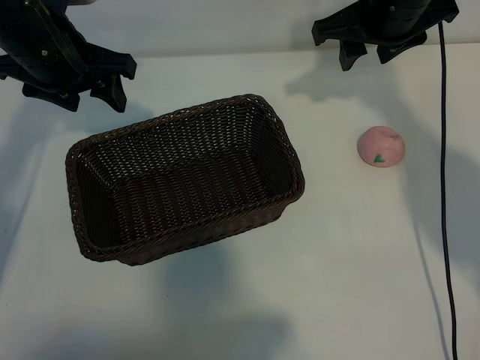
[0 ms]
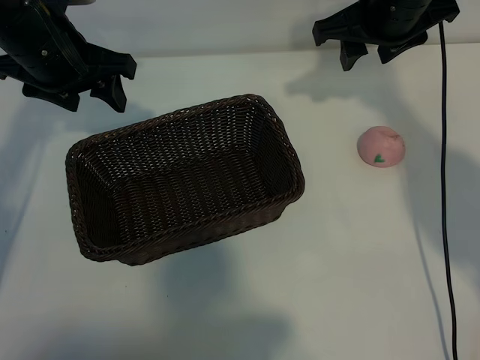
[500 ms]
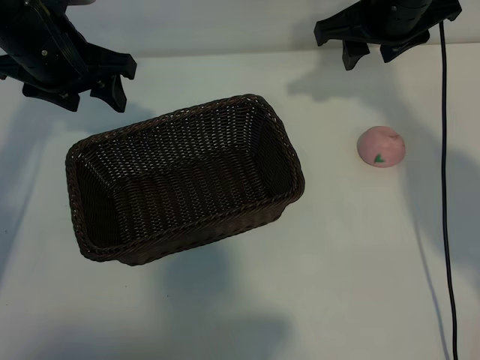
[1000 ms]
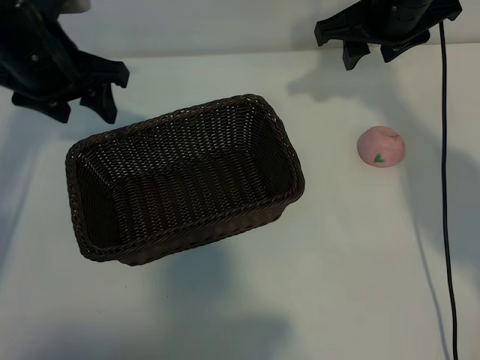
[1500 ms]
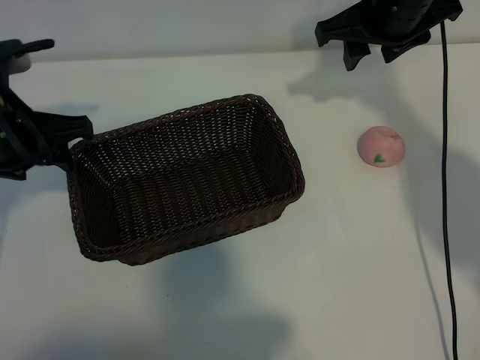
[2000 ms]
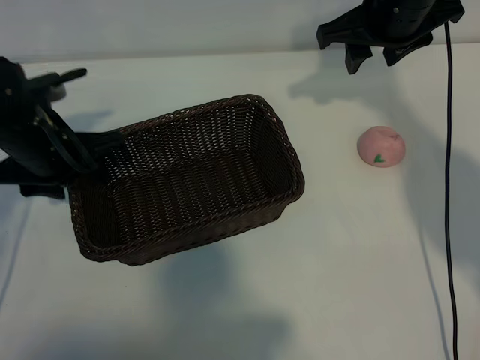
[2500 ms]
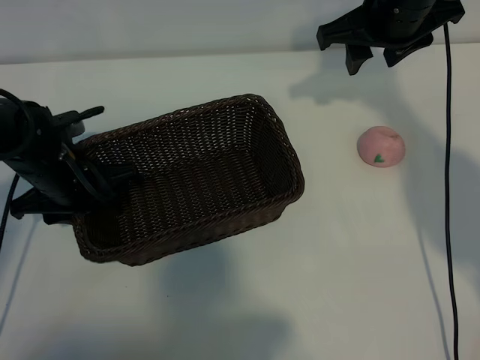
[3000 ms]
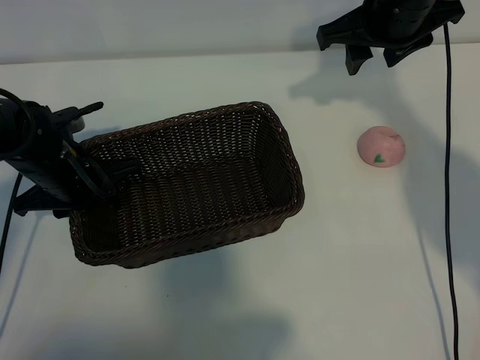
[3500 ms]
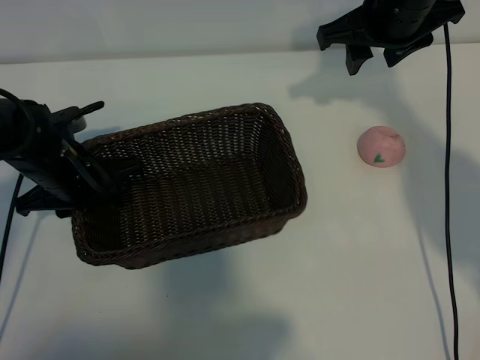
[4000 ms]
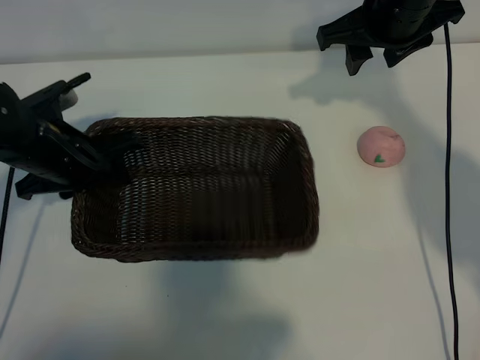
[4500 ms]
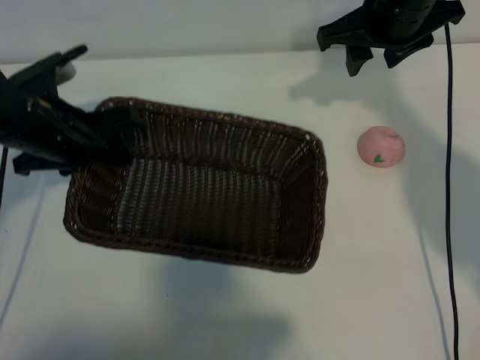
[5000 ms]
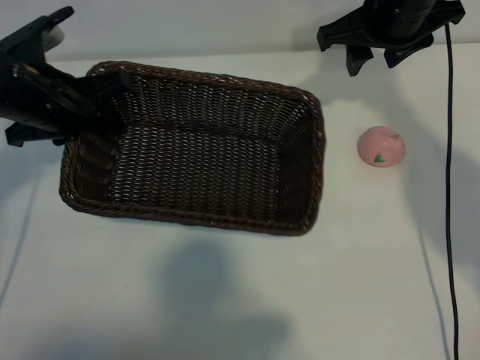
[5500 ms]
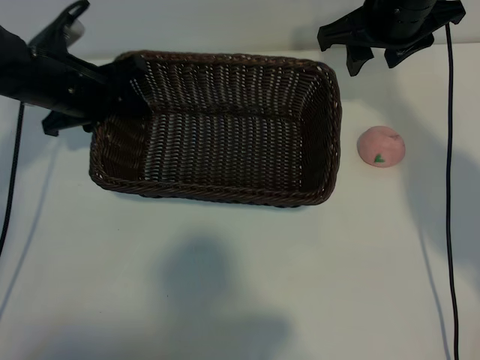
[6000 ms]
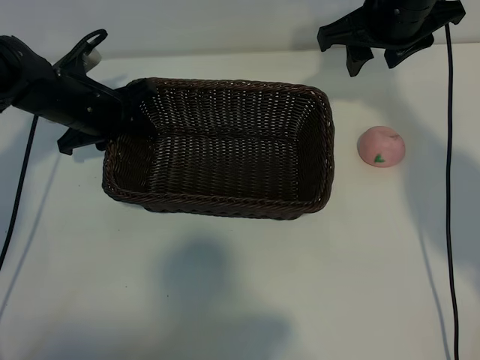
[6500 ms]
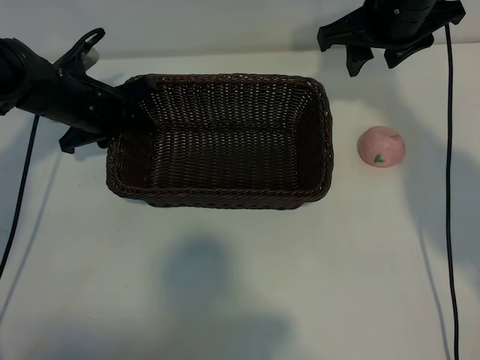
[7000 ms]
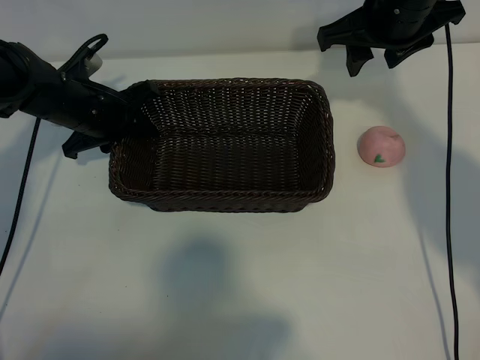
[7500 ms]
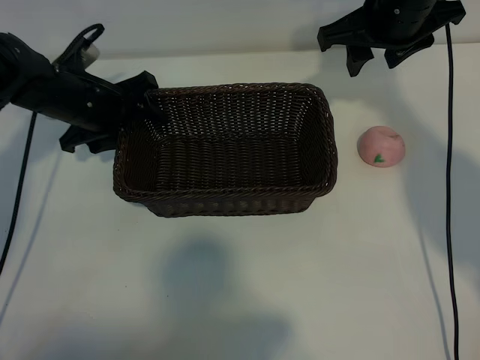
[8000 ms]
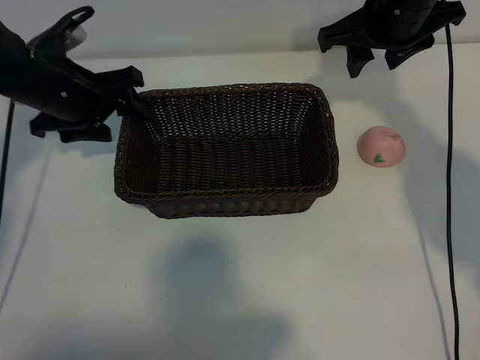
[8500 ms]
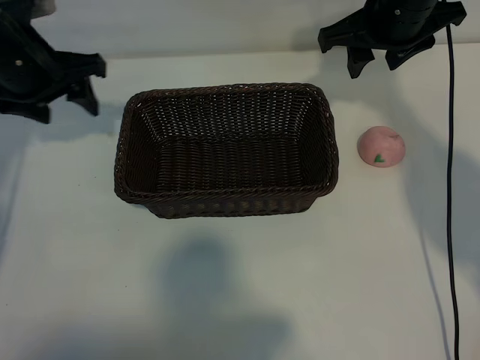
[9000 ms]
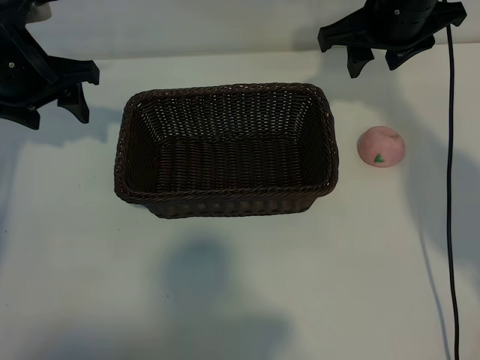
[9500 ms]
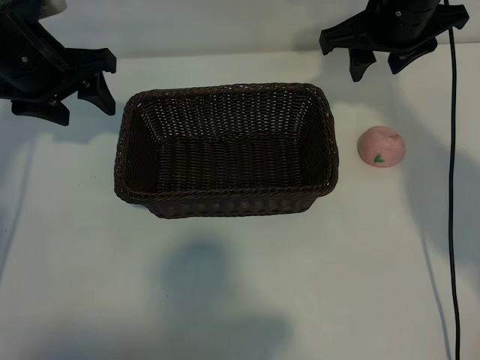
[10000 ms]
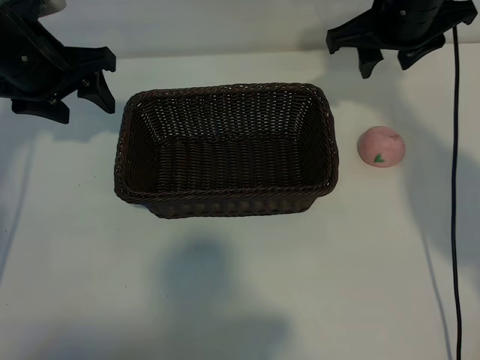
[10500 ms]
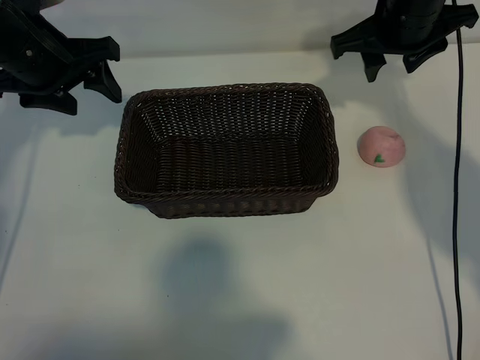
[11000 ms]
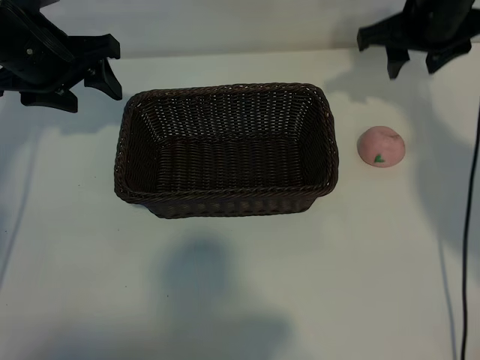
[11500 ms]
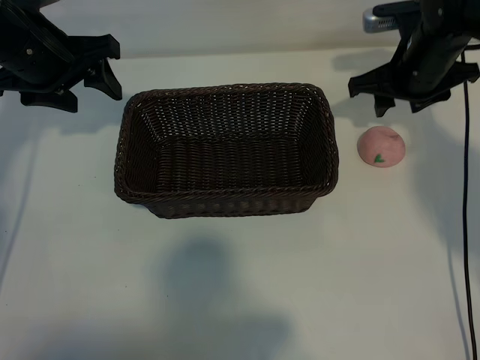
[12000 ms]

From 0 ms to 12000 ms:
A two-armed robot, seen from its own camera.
Task of the whole recording: pick up the peach and put it into the basket.
Step, from 1500 ms to 3500 ms: Grasp the basket with left gripper.
Step, from 4000 ms to 8000 ms: Place the basket in the center of view with left gripper.

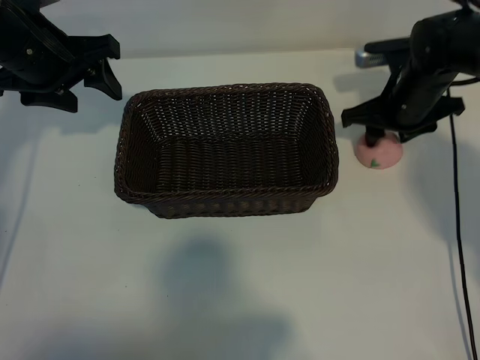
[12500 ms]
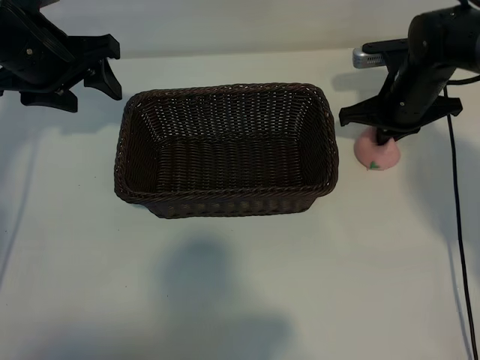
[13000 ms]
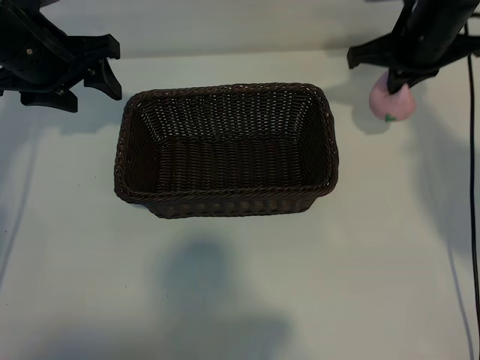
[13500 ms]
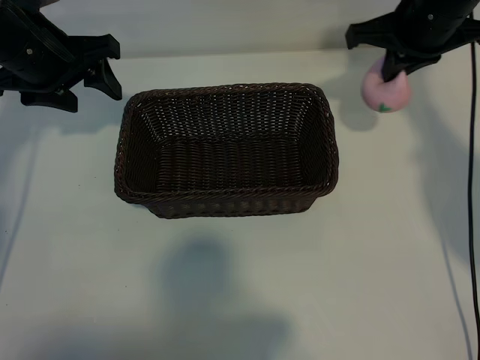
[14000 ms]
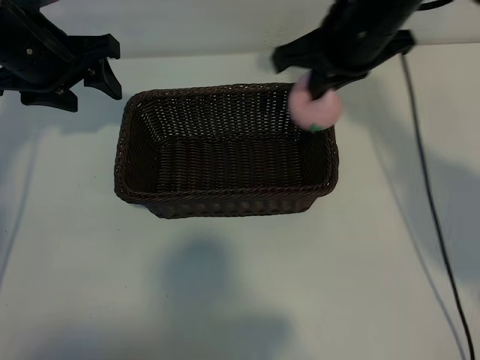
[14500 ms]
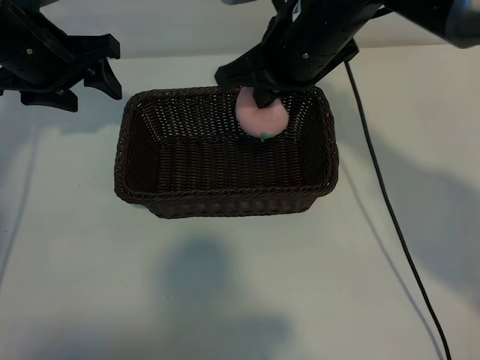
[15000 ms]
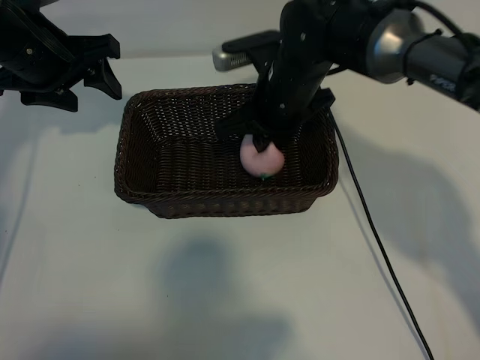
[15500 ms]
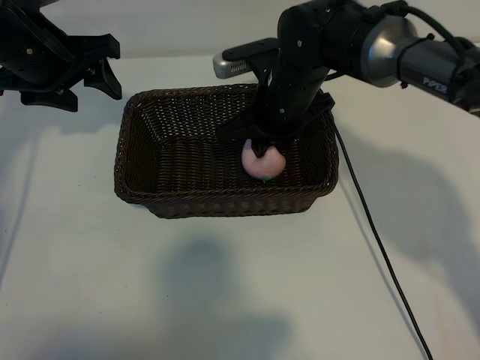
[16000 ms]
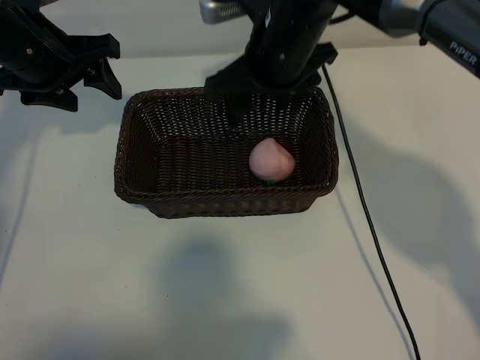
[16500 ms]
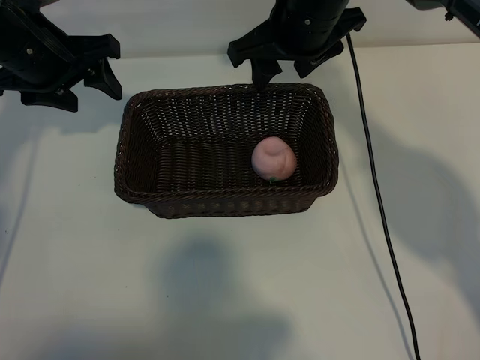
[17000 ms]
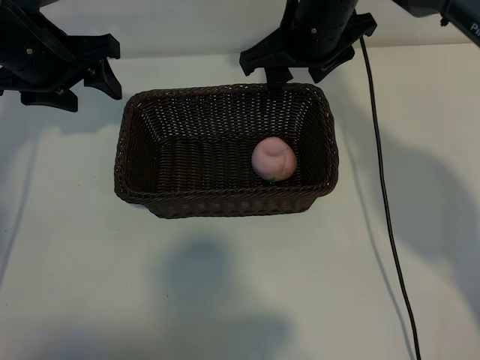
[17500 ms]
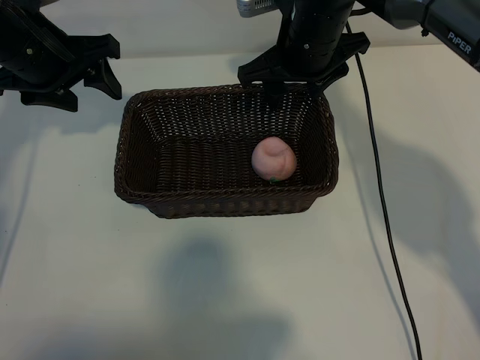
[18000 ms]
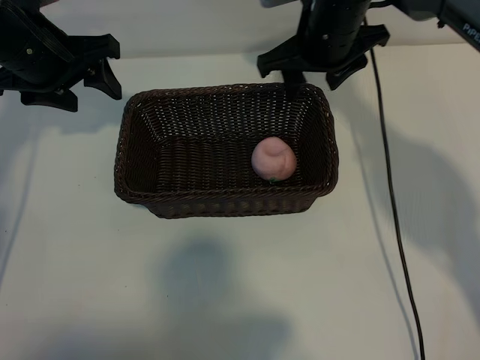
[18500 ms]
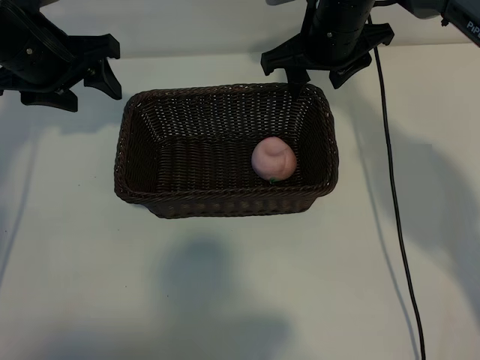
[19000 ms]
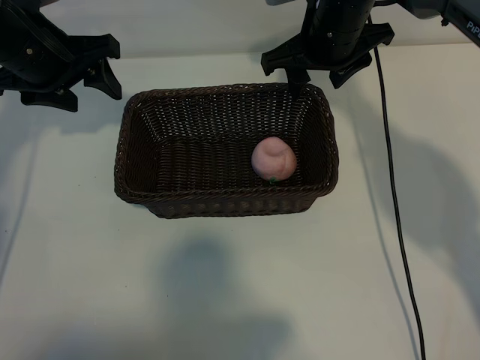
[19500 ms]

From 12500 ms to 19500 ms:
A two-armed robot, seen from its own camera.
Task of the whole recording: pick up the peach and put it into the basket.
Step, from 13000 ms to 16000 ms: Place the peach in the basket with right gripper.

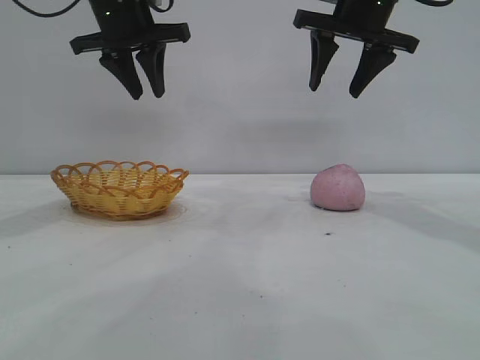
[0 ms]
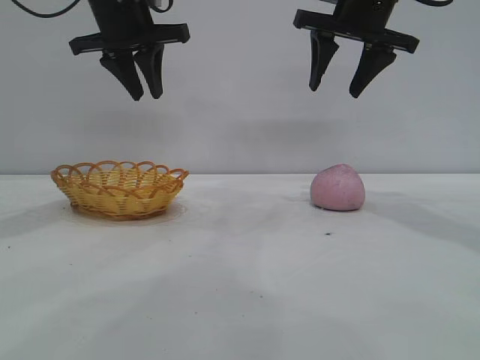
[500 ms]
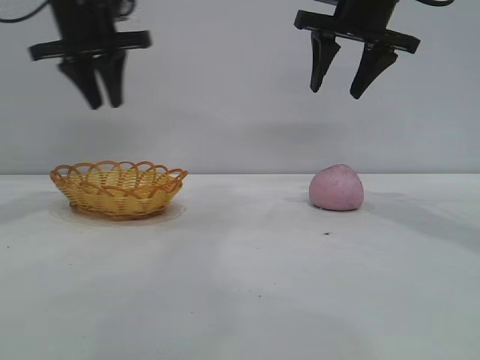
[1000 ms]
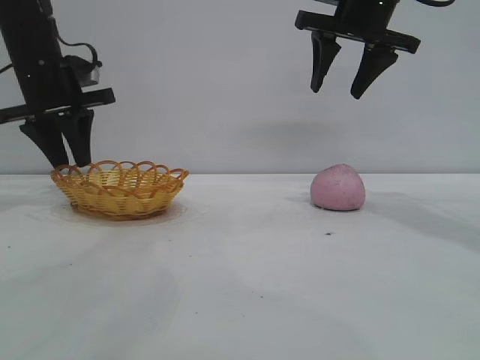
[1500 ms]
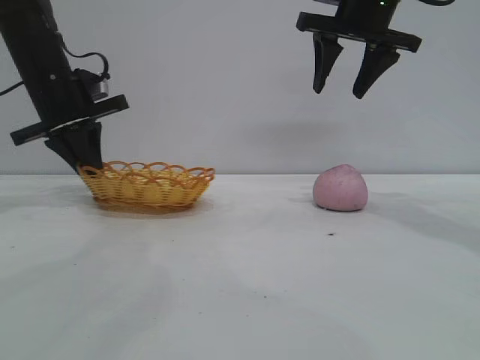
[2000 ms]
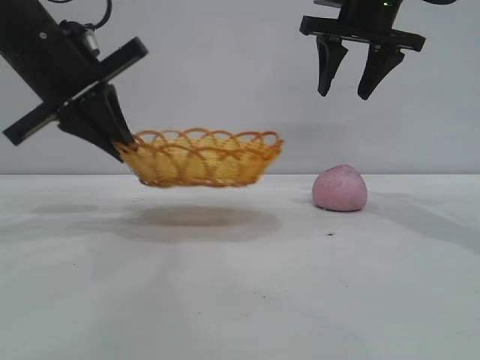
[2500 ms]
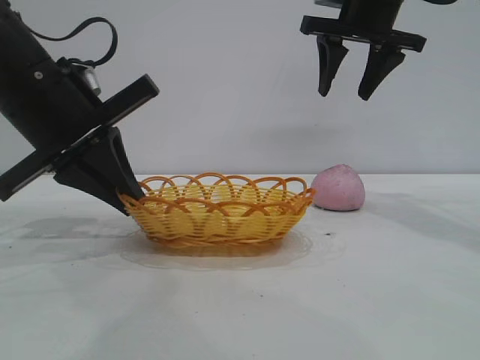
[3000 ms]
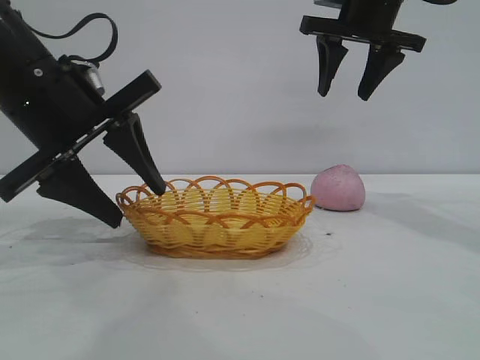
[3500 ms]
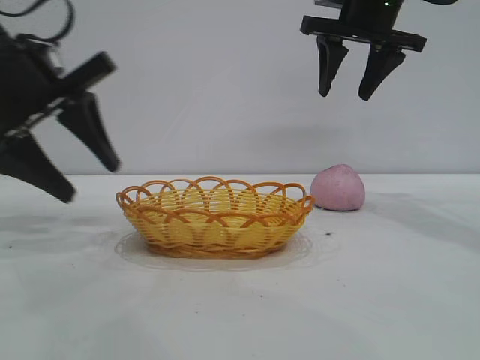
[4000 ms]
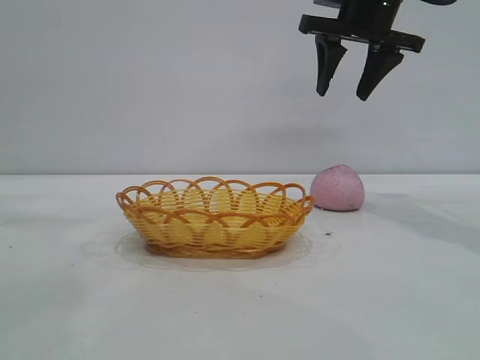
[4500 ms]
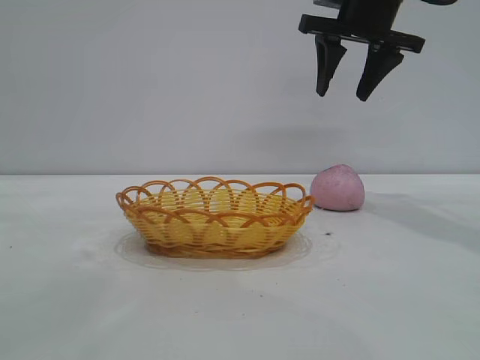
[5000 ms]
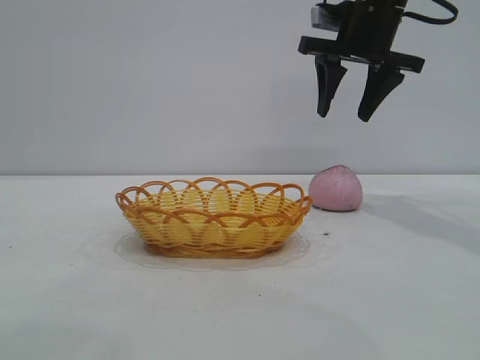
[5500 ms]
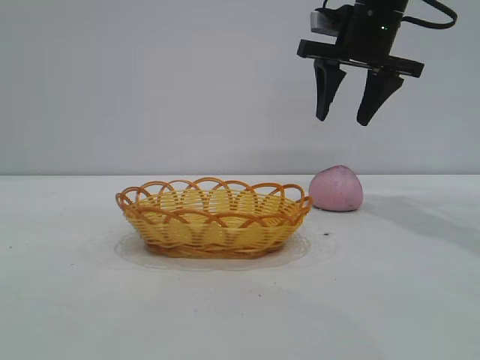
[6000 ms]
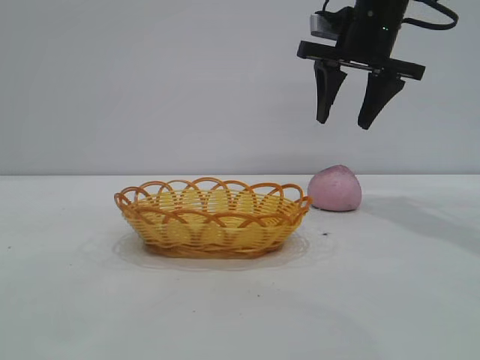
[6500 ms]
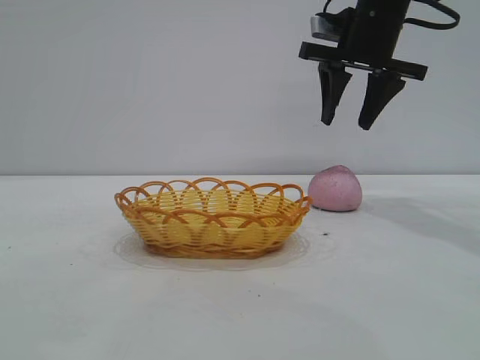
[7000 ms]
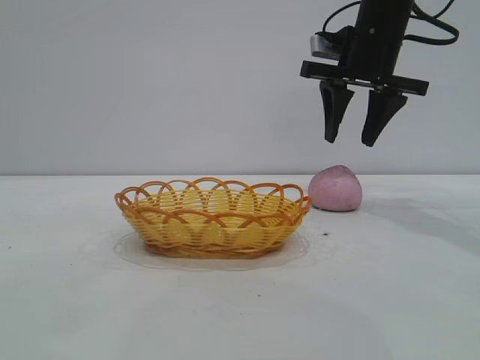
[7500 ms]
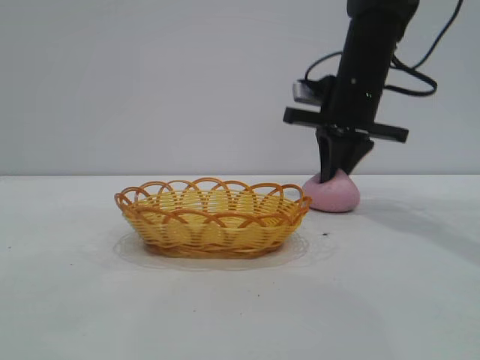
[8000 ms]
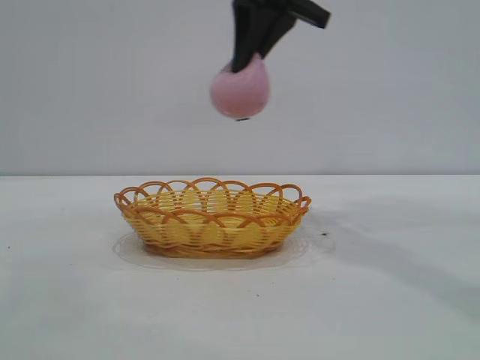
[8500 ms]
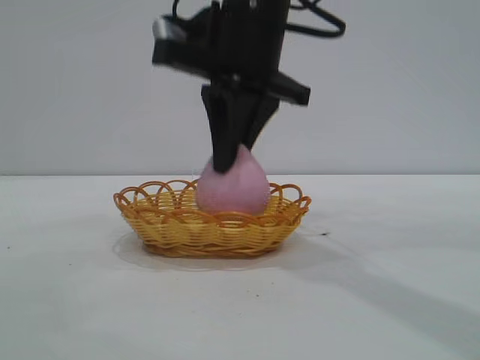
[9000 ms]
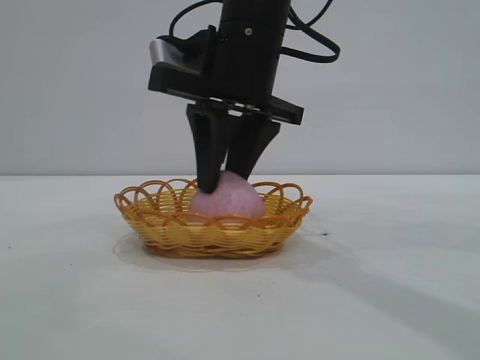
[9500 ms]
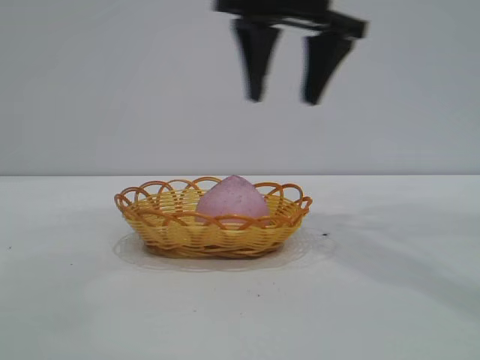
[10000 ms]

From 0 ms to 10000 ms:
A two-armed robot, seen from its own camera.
Task of the whole recording: pick up the peach and put it into the basket.
Step, from 0 ms to 4000 ms: Move the basket to the center of view.
Step, from 4500 ms to 8000 ms: Pick up the peach.
Step, from 8500 ms to 9500 ms: place the peach into the basket.
